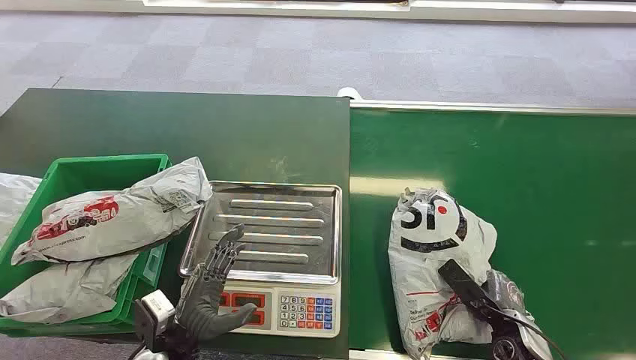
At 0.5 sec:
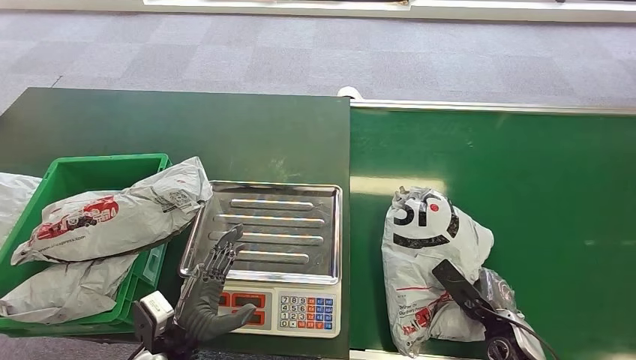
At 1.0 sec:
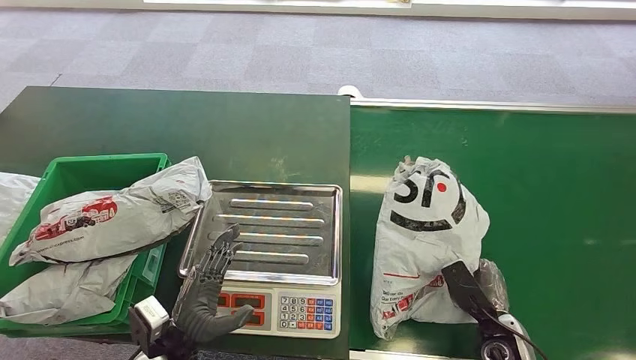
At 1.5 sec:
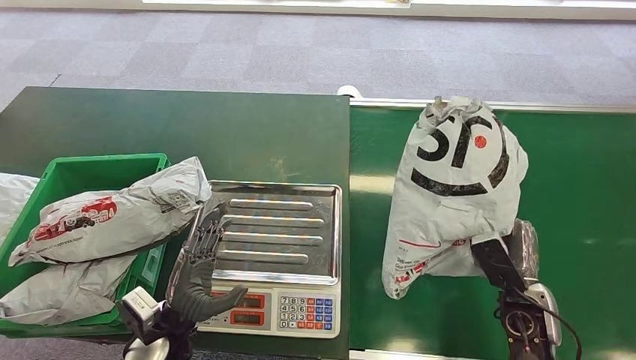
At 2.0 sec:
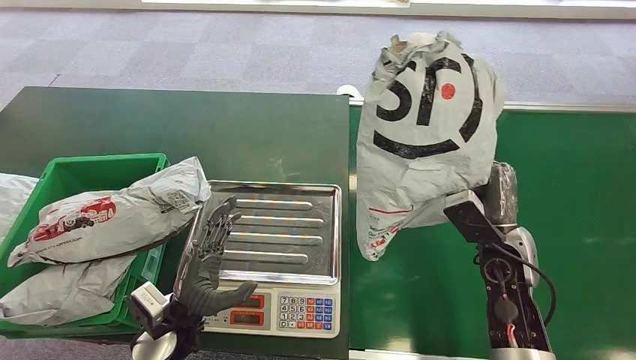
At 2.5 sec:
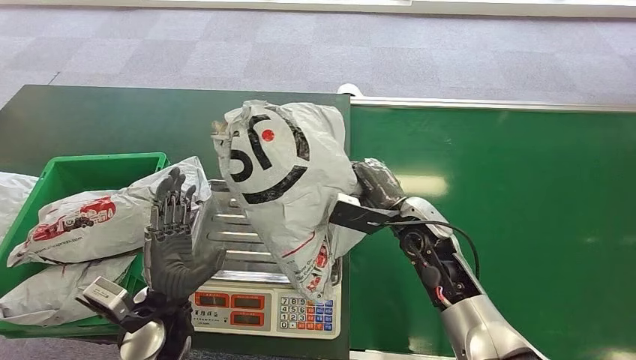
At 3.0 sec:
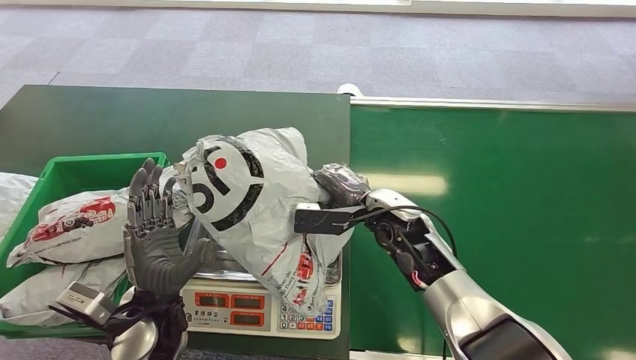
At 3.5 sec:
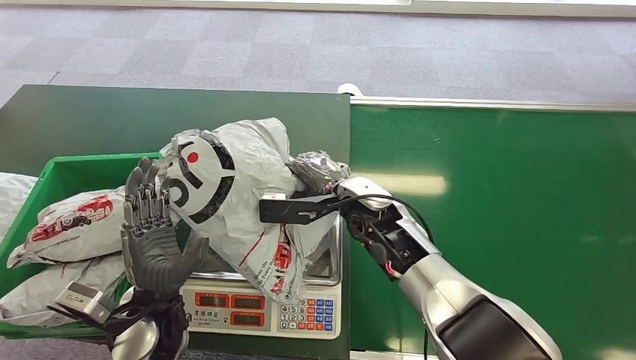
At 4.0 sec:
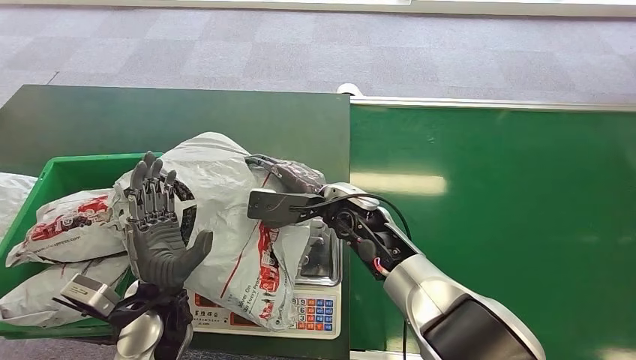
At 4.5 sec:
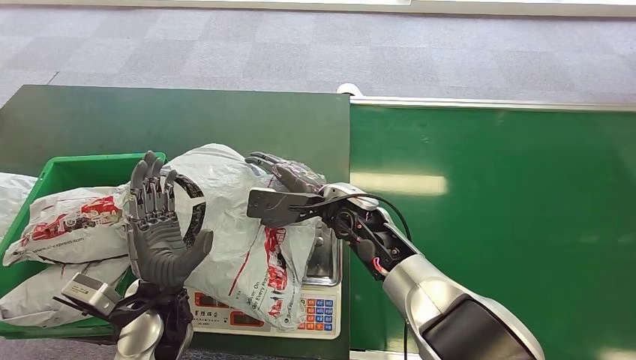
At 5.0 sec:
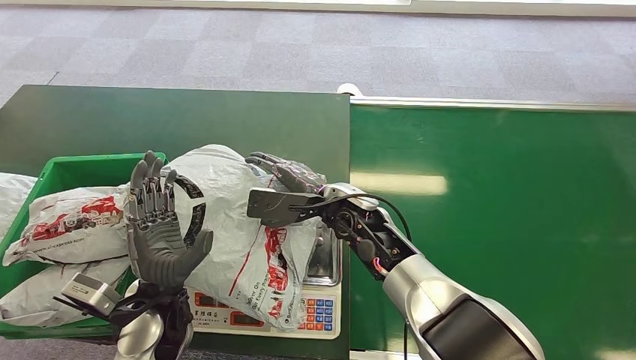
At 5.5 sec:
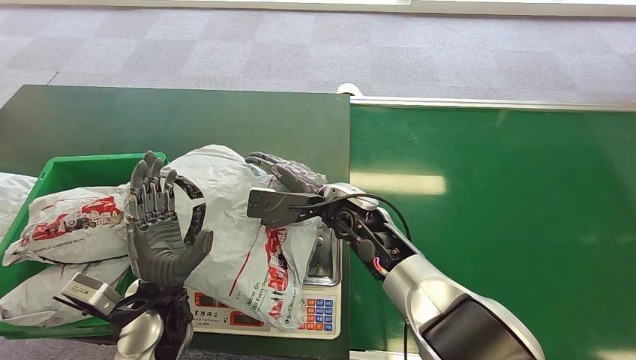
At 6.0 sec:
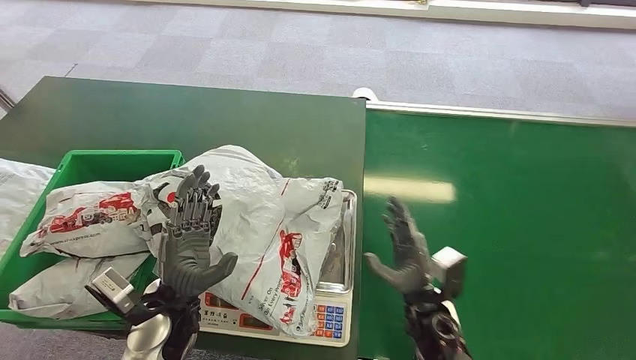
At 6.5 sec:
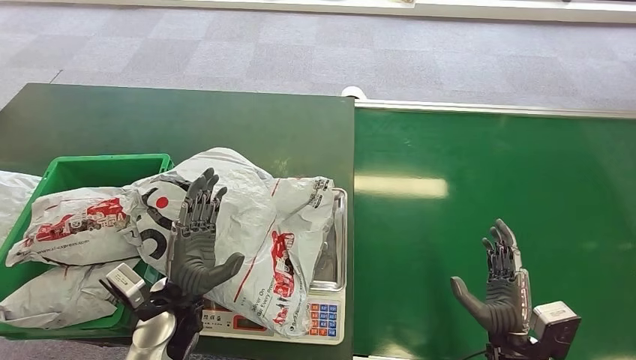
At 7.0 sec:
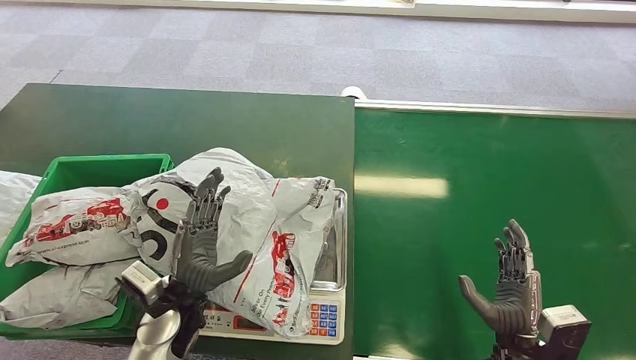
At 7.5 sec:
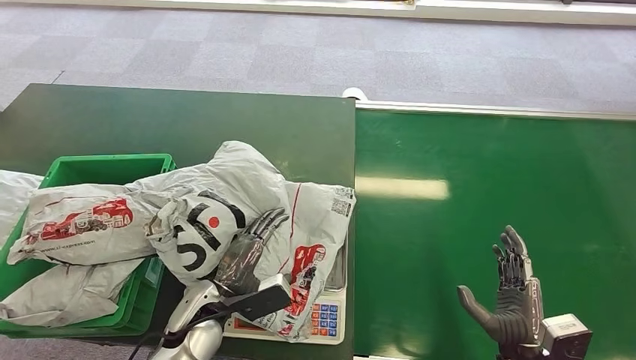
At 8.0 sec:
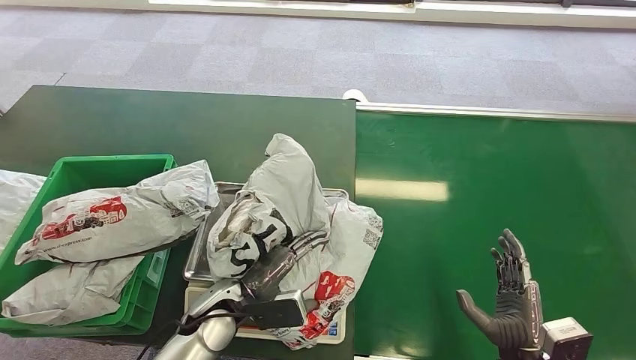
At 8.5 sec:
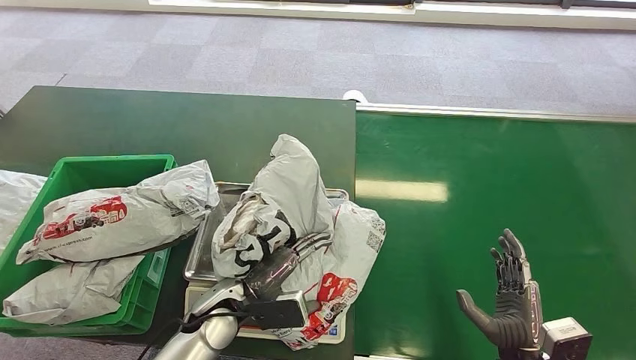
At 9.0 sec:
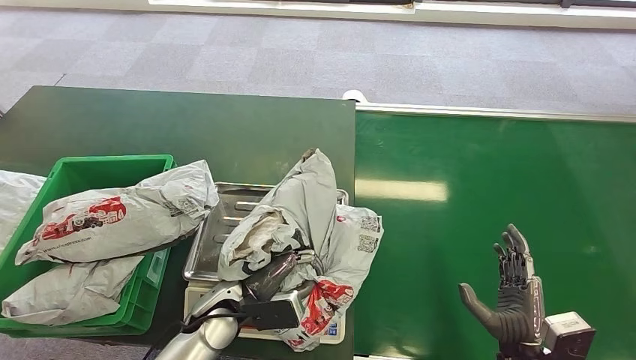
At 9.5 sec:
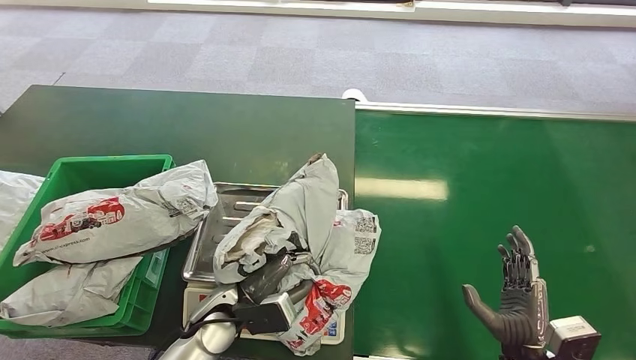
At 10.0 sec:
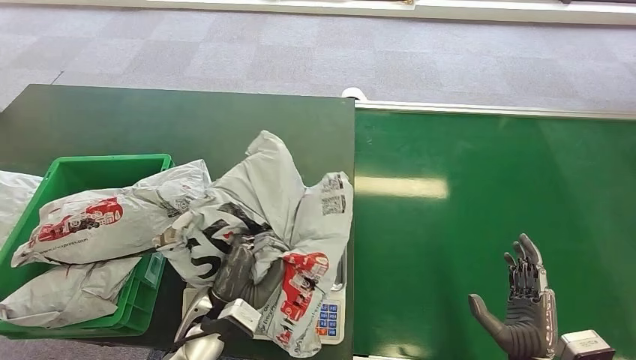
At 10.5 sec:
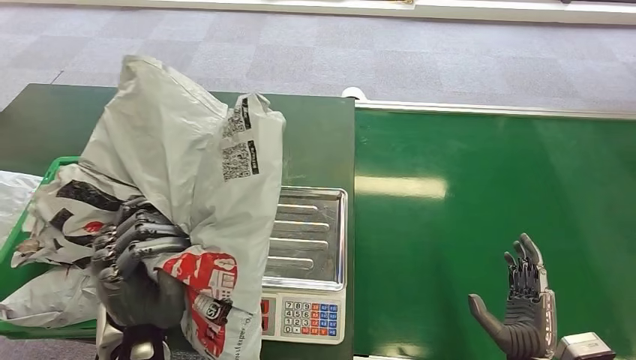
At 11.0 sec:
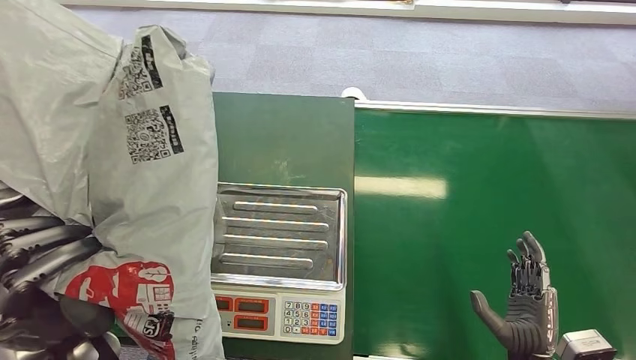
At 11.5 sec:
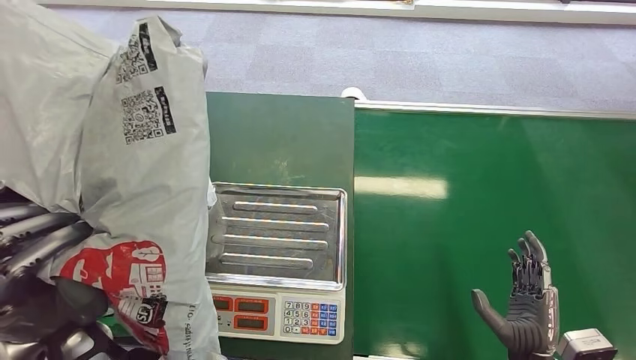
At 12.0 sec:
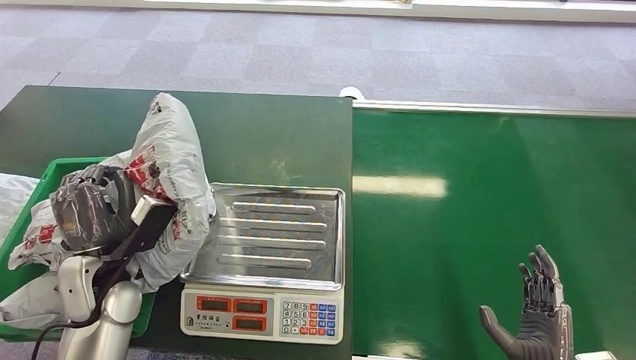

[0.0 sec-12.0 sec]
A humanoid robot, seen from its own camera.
Step, 0.0 sec to 1.5 sec: Pick up the package from the conveyor belt.
Step, 2.5 sec to 4.5 sec: Place the package onto the inbound machine.
Step, 8.5 sec to 10.0 sec: Pick up the package from the inbound machine.

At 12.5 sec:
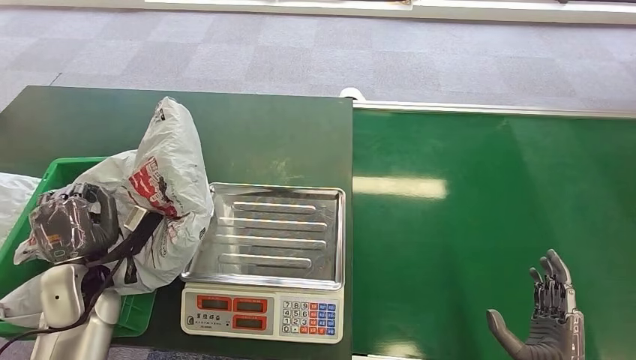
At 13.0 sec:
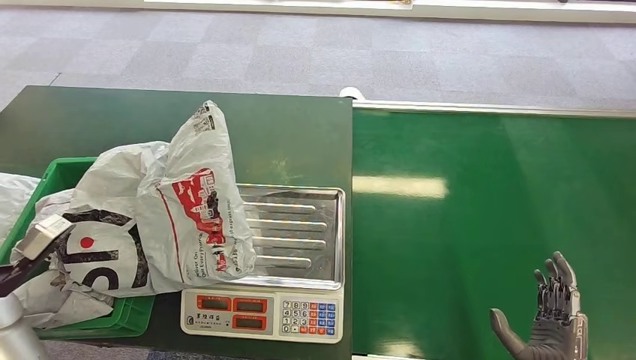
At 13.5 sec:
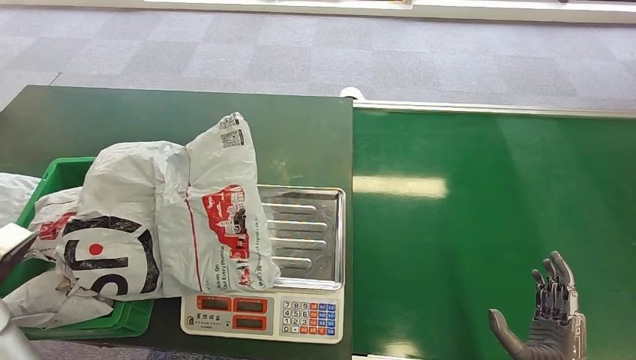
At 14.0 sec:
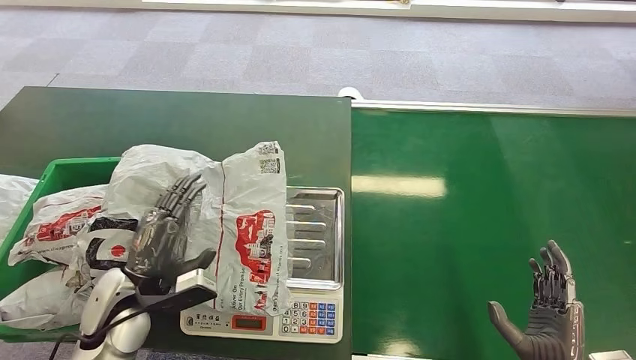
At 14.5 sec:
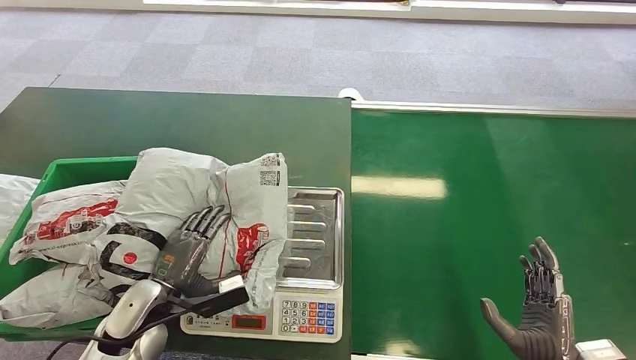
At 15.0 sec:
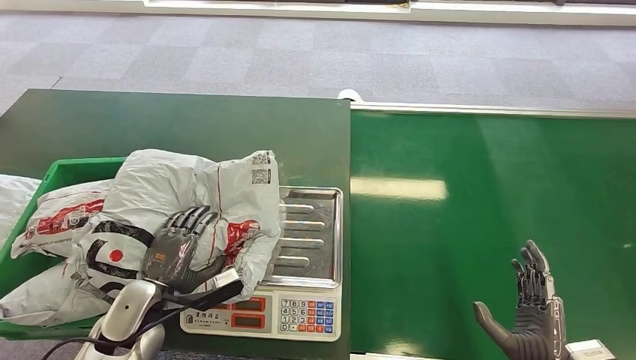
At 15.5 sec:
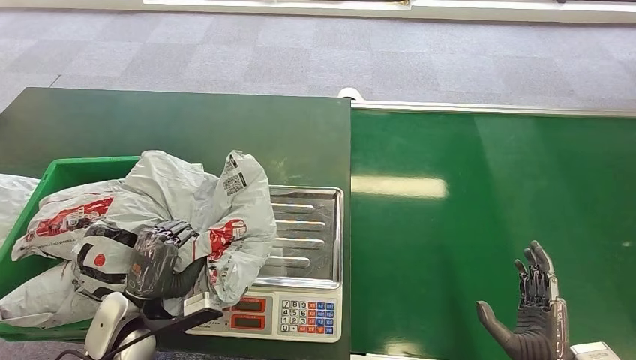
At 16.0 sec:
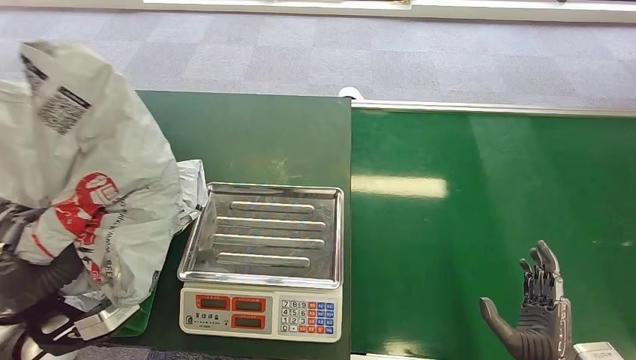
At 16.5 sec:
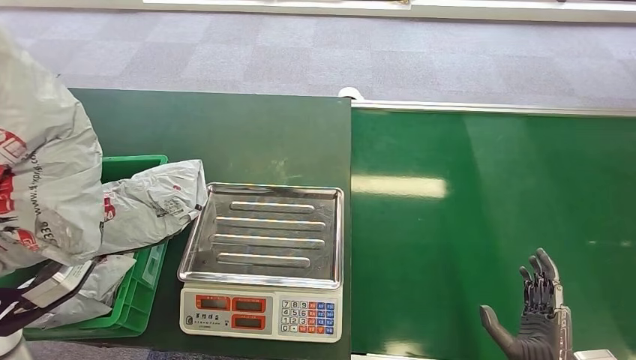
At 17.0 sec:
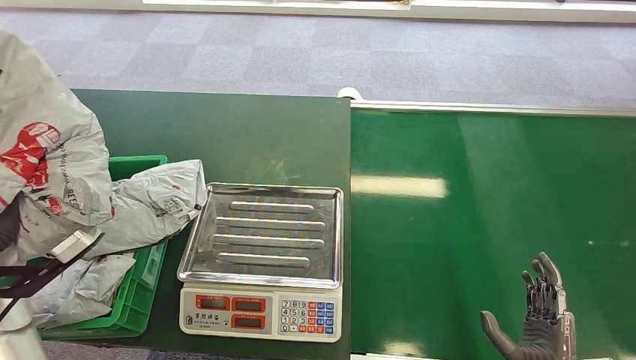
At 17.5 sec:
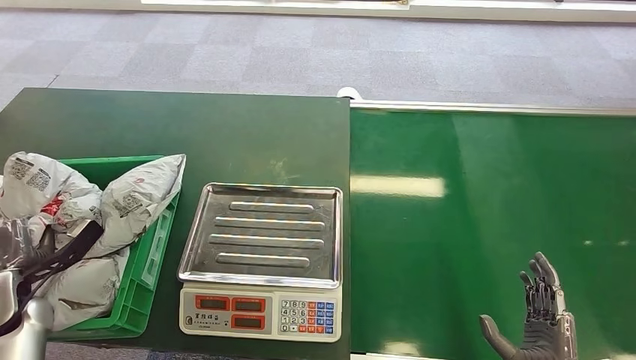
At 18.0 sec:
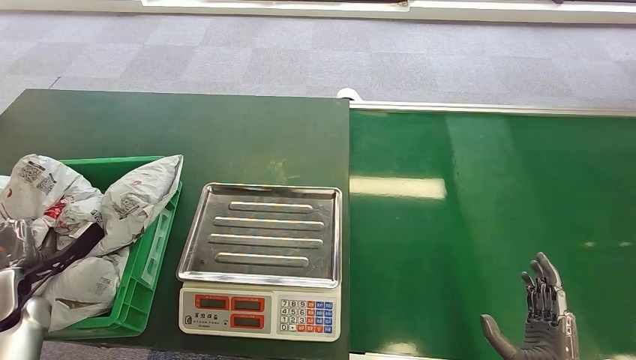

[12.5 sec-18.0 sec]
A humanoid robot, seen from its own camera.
Step, 16.0 sec to 18.0 sec: Place the package into the parcel locker.
